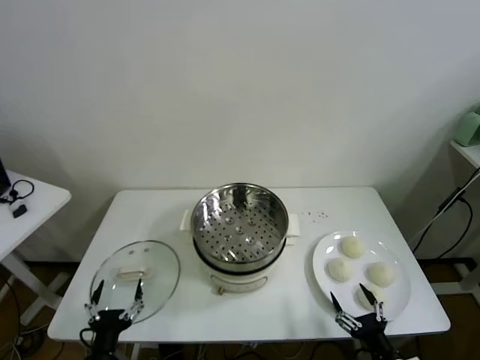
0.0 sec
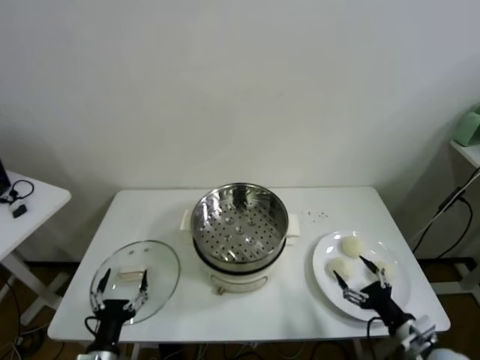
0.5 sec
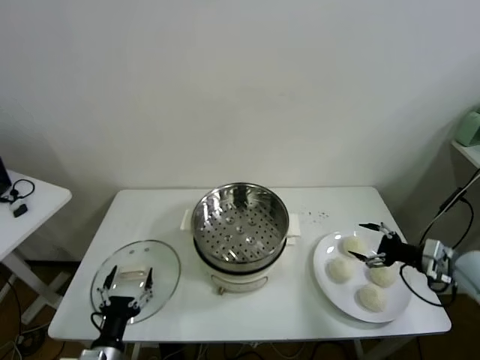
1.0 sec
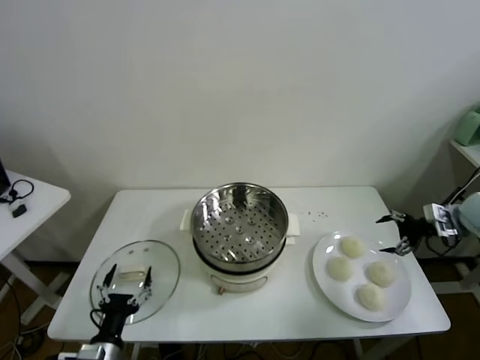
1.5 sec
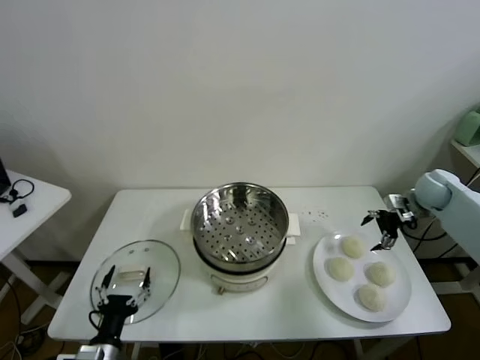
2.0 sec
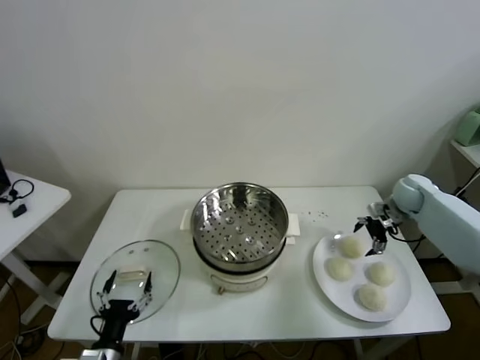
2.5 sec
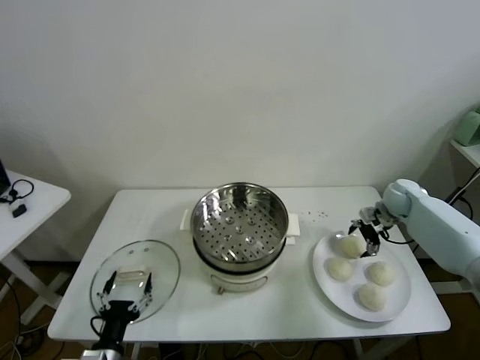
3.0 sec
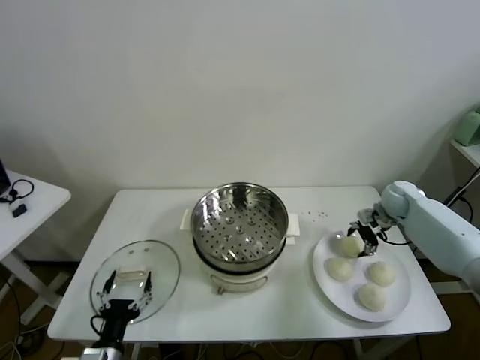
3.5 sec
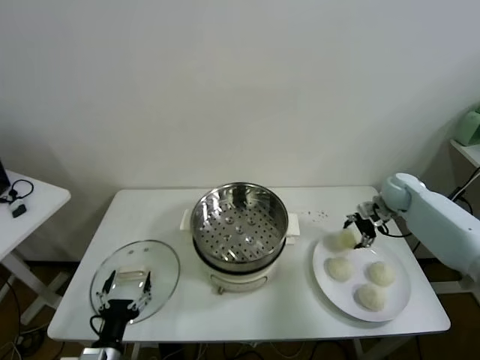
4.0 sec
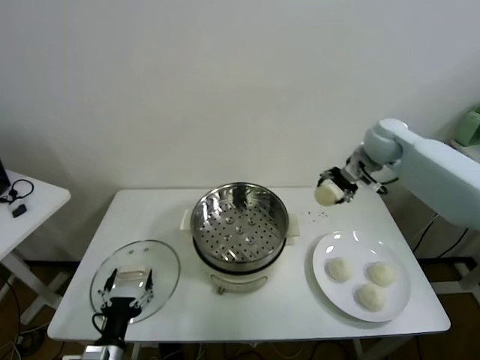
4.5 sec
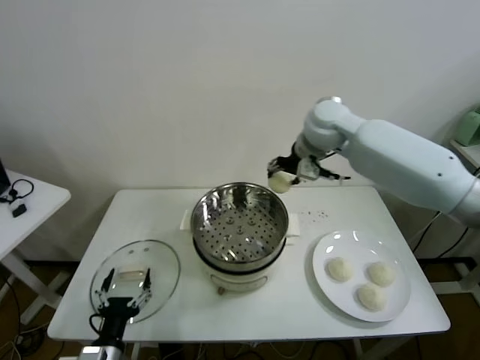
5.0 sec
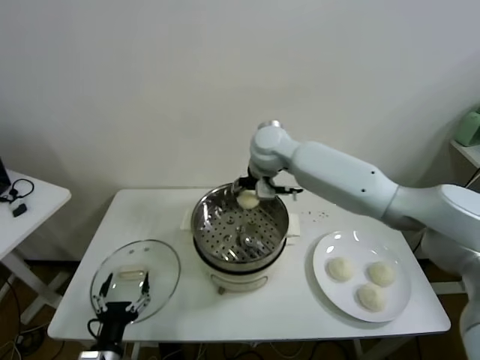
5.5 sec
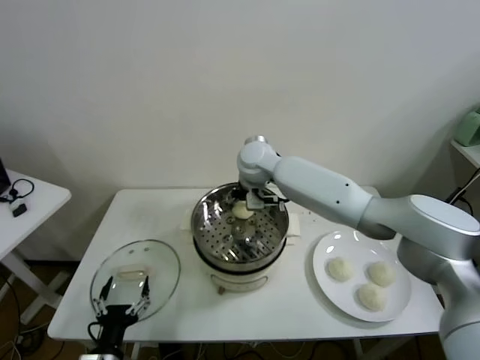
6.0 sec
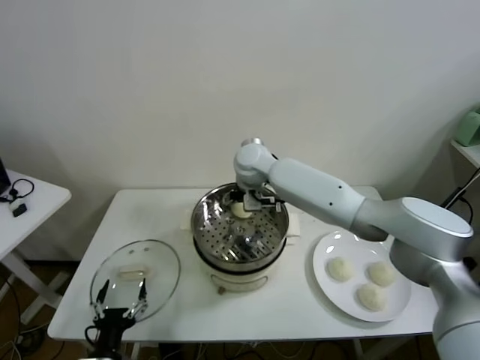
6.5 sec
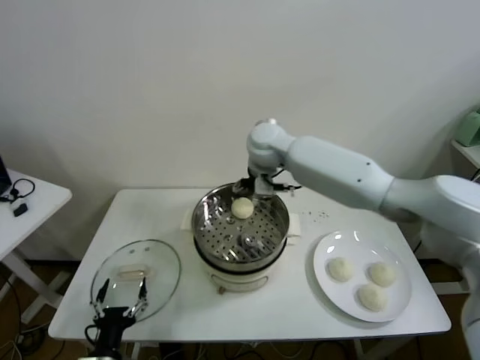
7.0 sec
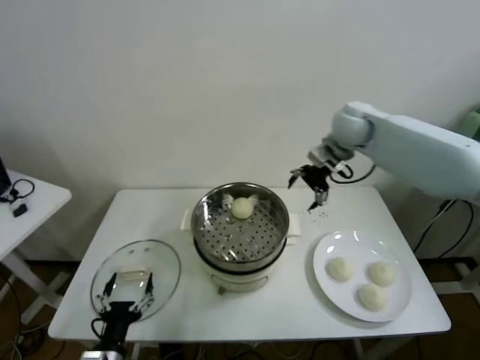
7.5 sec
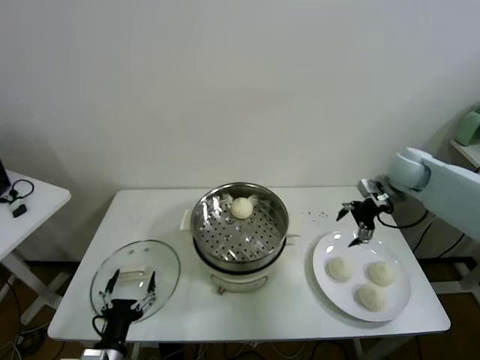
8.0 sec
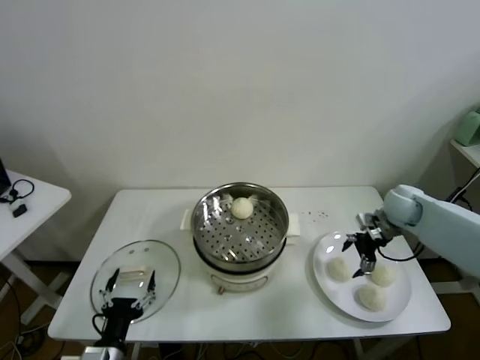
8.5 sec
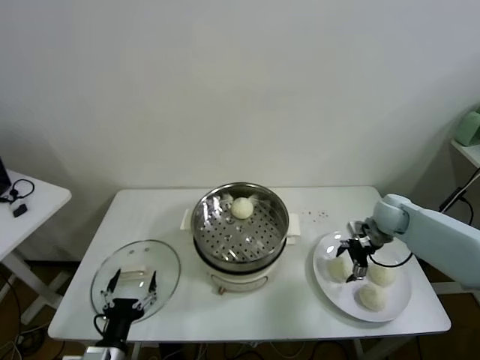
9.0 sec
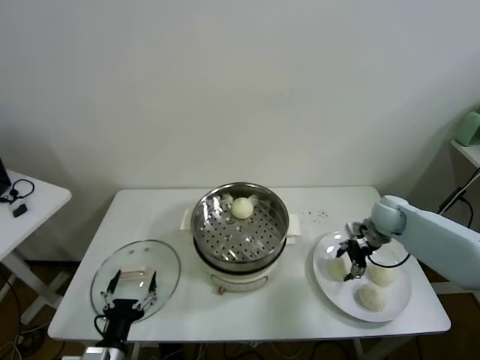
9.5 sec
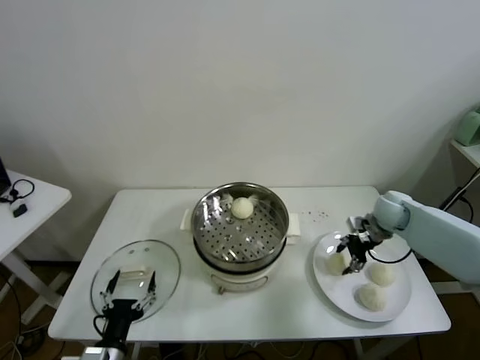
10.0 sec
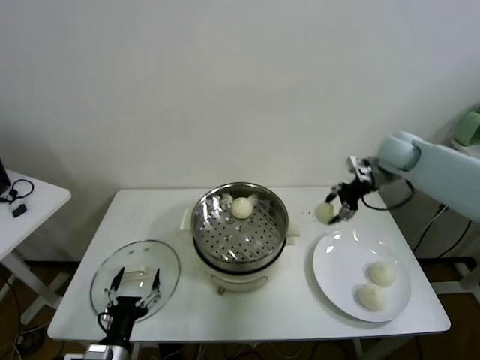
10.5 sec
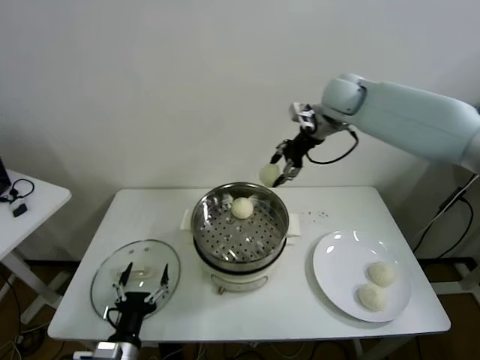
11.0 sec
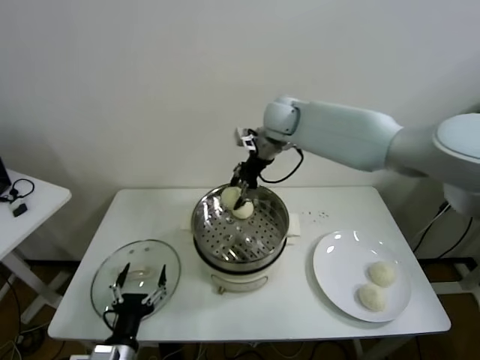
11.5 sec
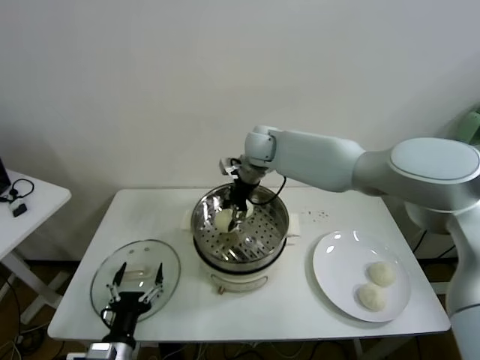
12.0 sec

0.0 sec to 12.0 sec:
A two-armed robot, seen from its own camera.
Task of the whole recording: take steamed baozi put them in steamer.
Step, 0.0 sec to 3.0 sec: Grasp the baozi in the plate with right gripper.
Step, 3.5 sec to 6.5 sec: Place the baozi on the steamer with right gripper.
Step, 7.0 sec to 9.0 sec: Grasp the baozi in the plate with right gripper.
2.0 sec to 4.0 sec: The right gripper goes roughly 5 cm to the left, and closes.
4.0 sec to 6.0 sec: The right gripper moves to the left, some 40 cm.
6.0 sec to 8.0 sec: The right gripper heads to the right, covering approximately 35 cm, and opens.
8.0 sec to 10.0 sec: The right gripper heads downward, covering approximately 10 cm, and closes its fingers.
10.0 sec to 12.0 sec: The right gripper is displaced to the left by roughly 35 cm.

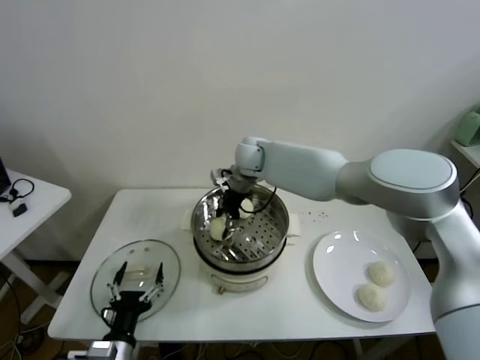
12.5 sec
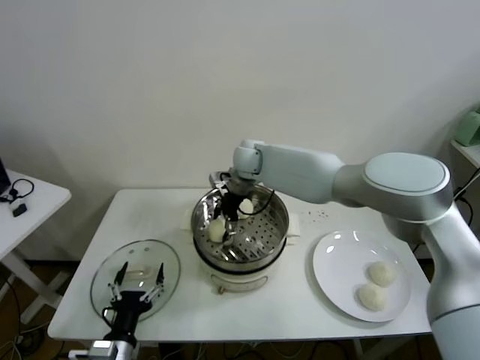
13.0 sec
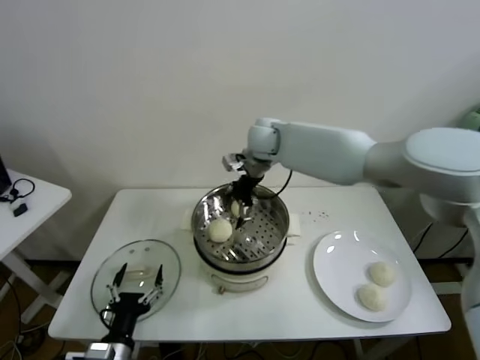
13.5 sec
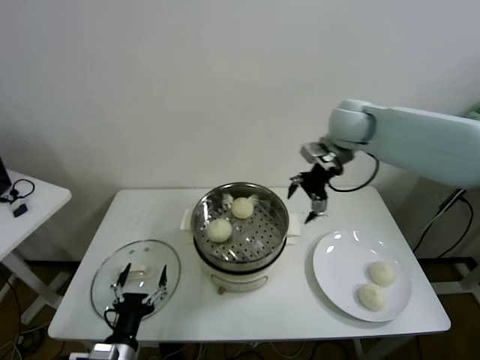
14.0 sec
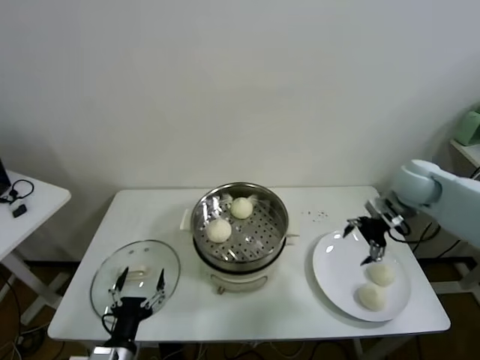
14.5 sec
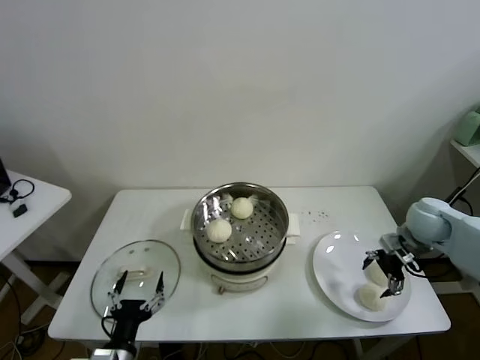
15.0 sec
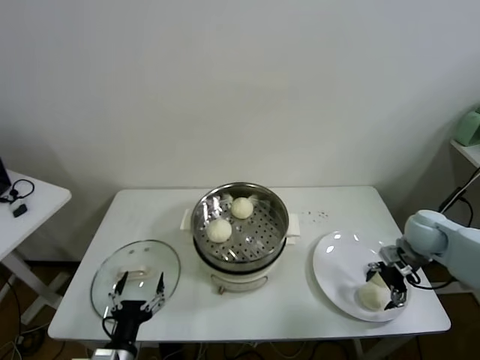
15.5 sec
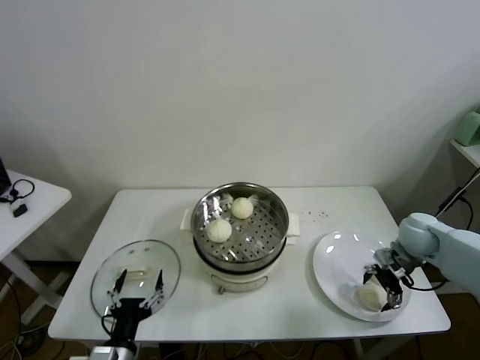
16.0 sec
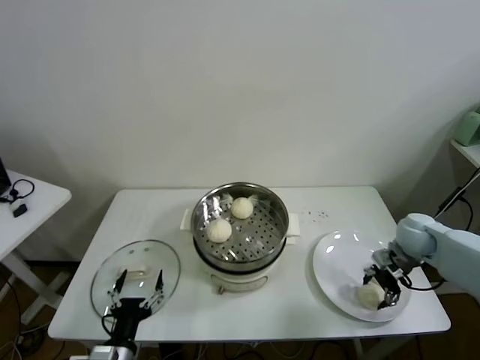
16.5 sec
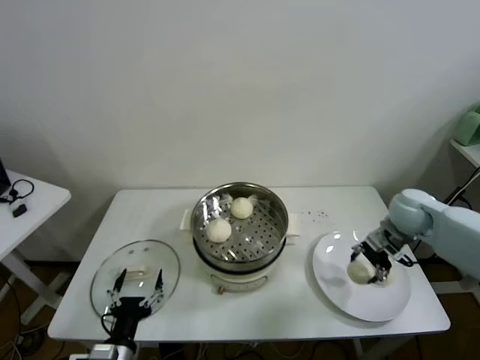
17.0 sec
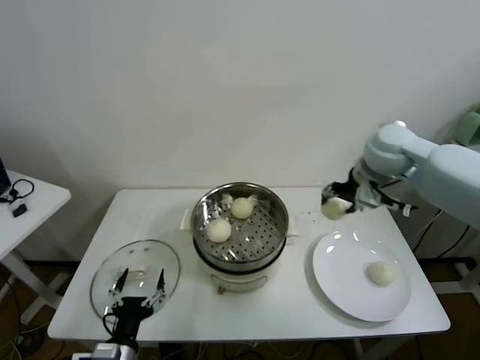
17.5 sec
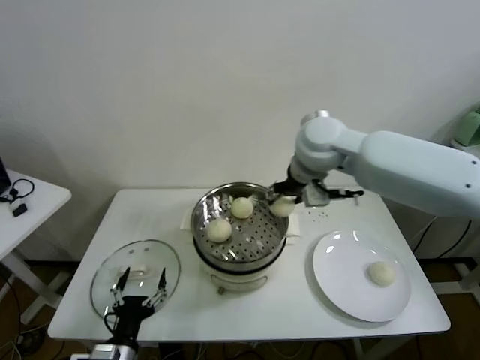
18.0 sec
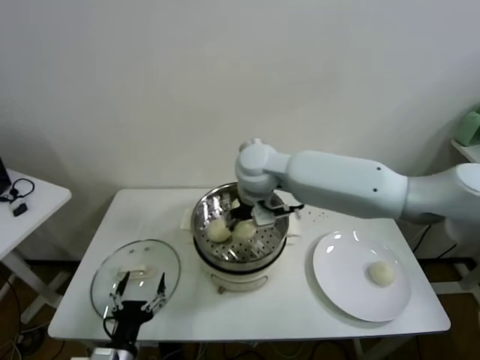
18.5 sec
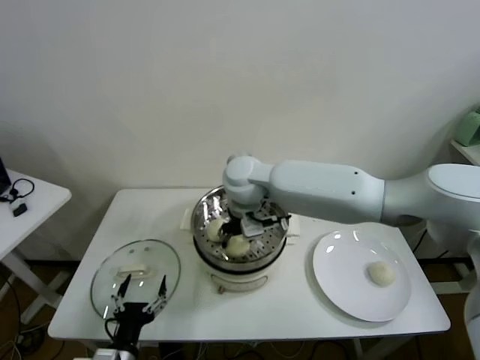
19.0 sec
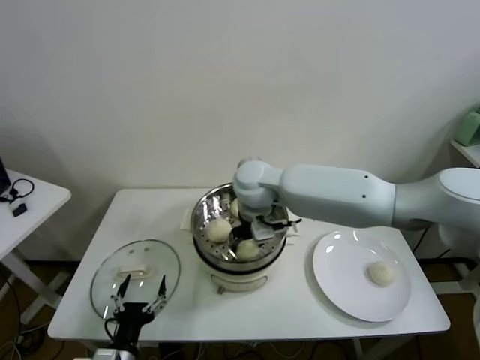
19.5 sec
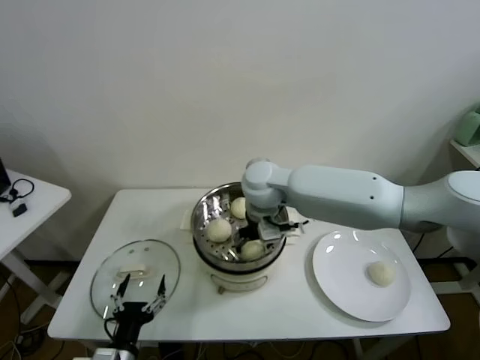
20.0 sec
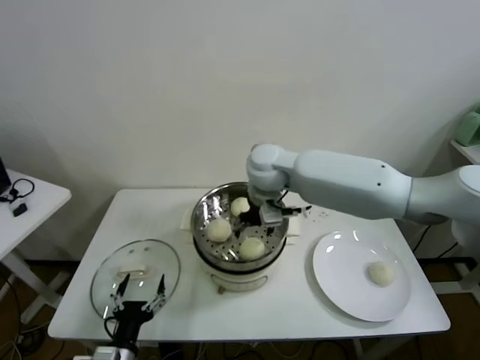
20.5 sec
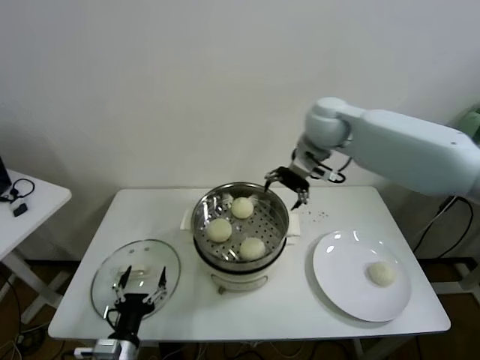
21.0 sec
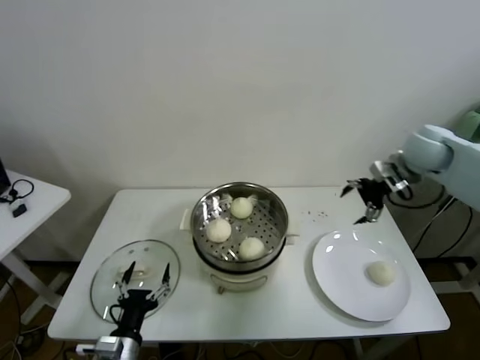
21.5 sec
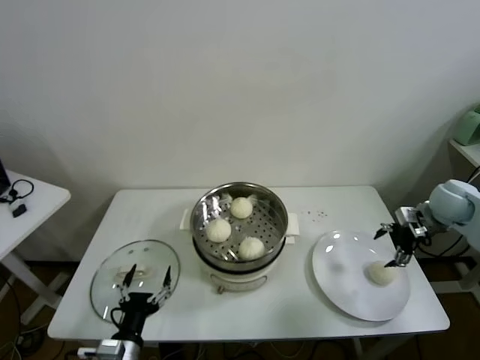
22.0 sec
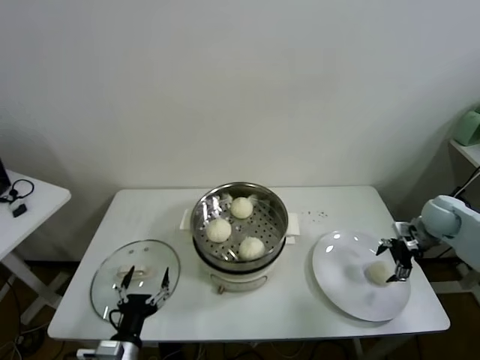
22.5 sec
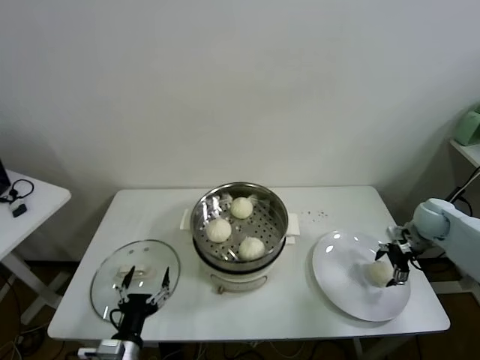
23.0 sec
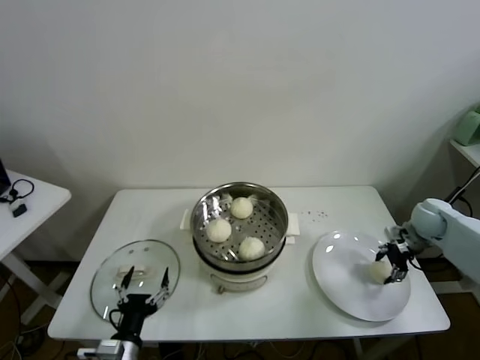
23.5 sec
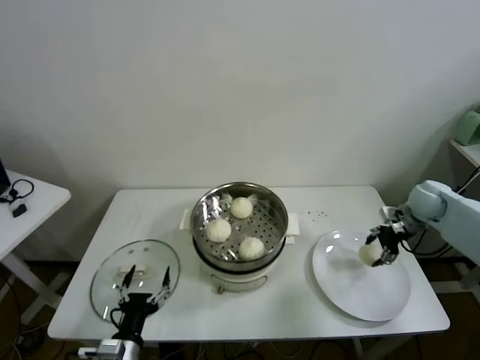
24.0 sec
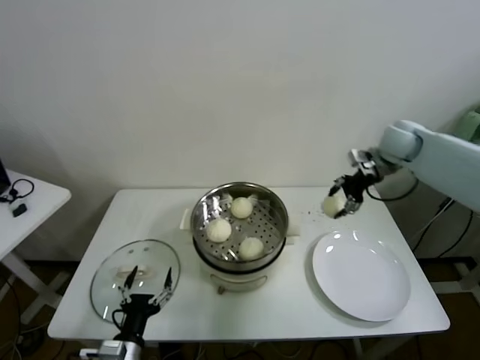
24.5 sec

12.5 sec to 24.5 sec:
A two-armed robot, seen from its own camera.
Task of the whole recording: take steamed baozi put them in steamer.
Step, 13.5 sec to 16.0 sec: Grasp the baozi in the plate with right gripper.
Step, 16.5 sec to 20.0 sec: Place the baozi on the steamer with right gripper.
Step, 20.5 sec to 23.0 sec: Grasp the baozi in the plate with right gripper.
12.5 sec to 14.5 sec: The right gripper heads to the right, covering approximately 35 cm, and opens its fingers.
14.5 sec to 16.5 sec: The right gripper travels downward by approximately 10 cm, and closes up.
16.5 sec to 18.5 sec: The right gripper is displaced to the left and upward by some 40 cm.
18.5 sec to 20.5 sec: The right gripper opens.
20.5 sec to 22.5 sec: The right gripper heads to the right, covering approximately 40 cm.
22.5 sec to 24.5 sec: The right gripper shifts roughly 20 cm upward, to the left and forward, and closes up.

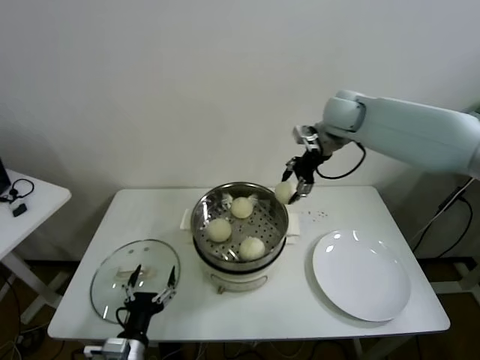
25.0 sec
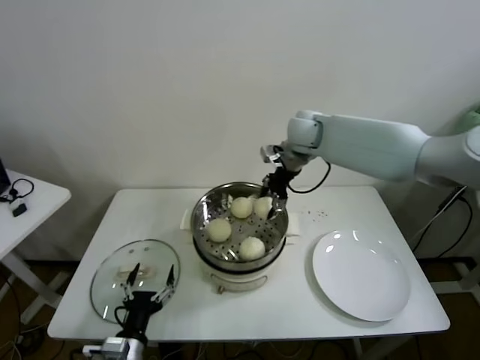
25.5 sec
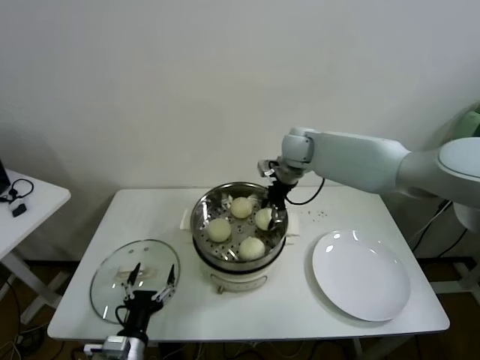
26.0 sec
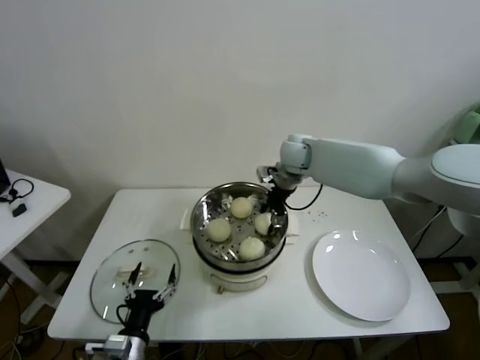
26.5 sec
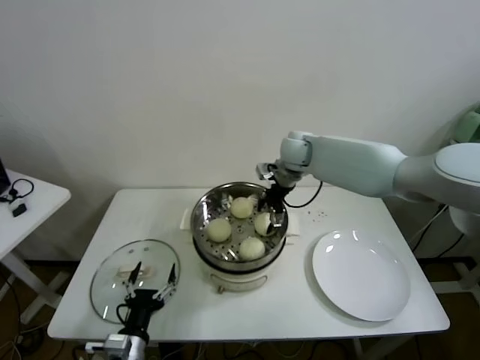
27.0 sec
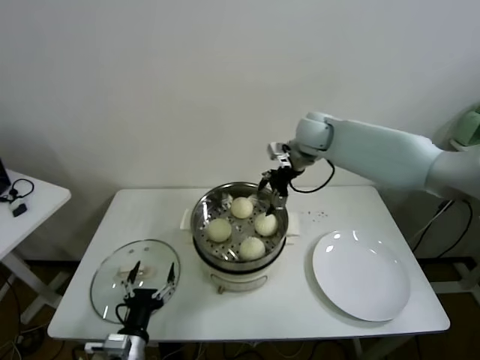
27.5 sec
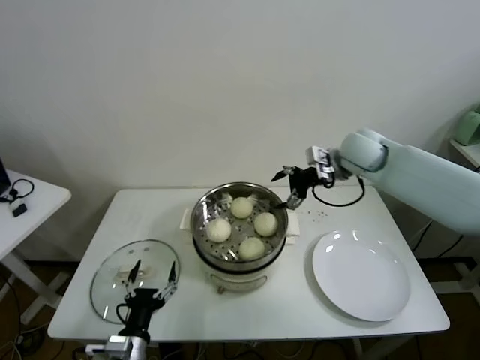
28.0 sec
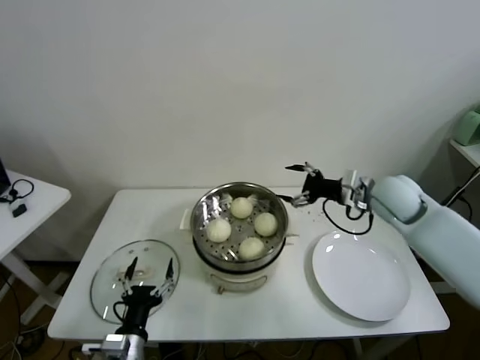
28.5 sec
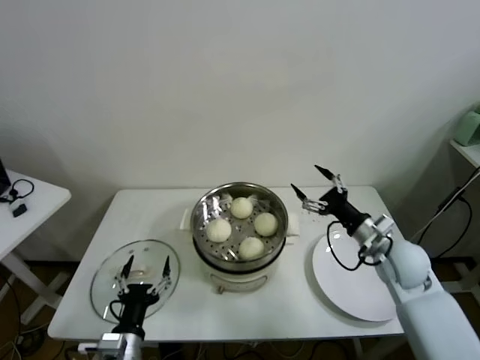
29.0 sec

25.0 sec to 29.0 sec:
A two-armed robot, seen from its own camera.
Task of the whole recording: take steamed baozi put them in steamer.
25.0 sec to 27.0 sec: The right gripper shifts approximately 15 cm downward and to the left, and opens up.
27.0 sec to 29.0 sec: The right gripper travels backward, to the right and downward by some 30 cm.
